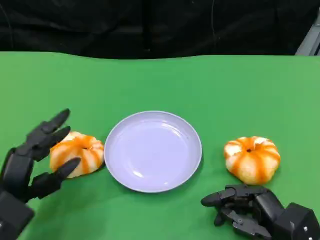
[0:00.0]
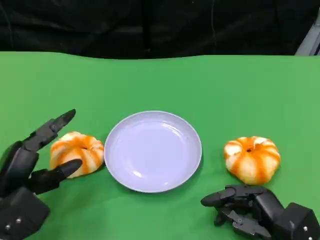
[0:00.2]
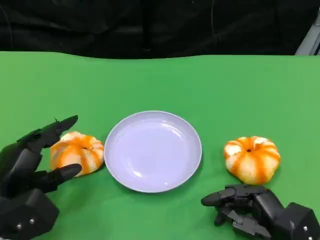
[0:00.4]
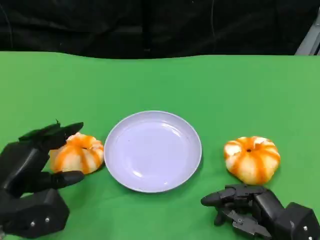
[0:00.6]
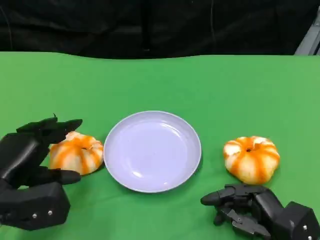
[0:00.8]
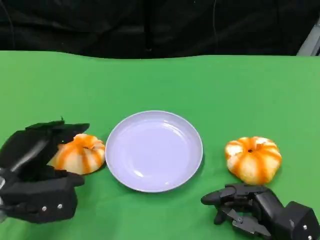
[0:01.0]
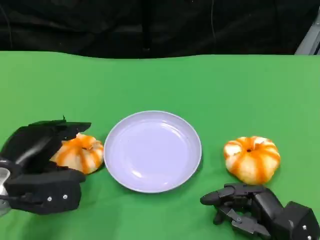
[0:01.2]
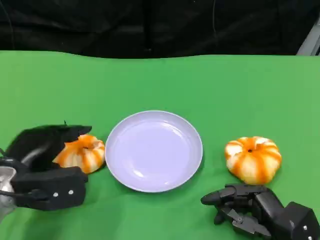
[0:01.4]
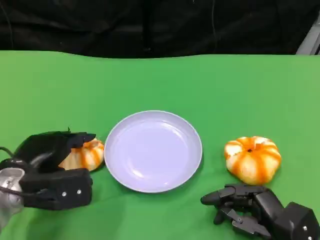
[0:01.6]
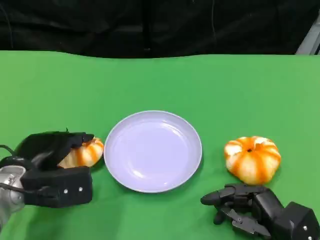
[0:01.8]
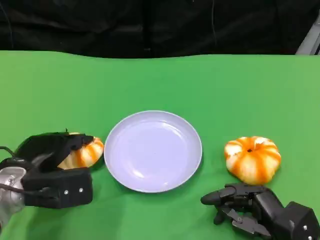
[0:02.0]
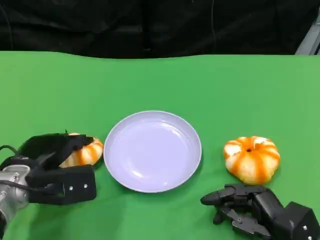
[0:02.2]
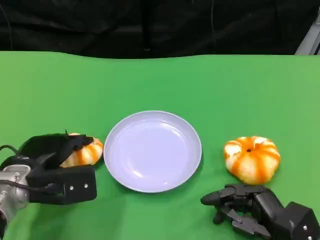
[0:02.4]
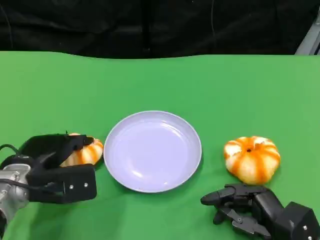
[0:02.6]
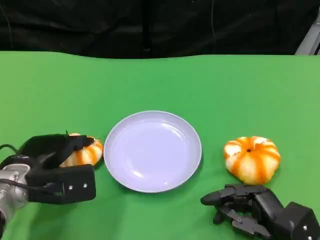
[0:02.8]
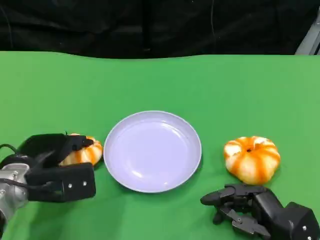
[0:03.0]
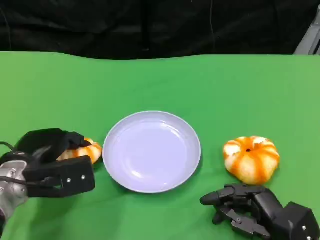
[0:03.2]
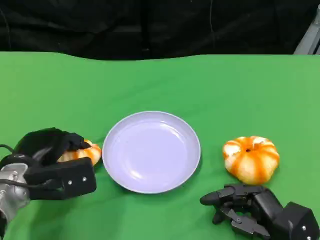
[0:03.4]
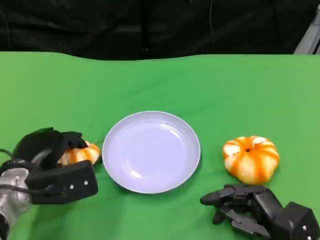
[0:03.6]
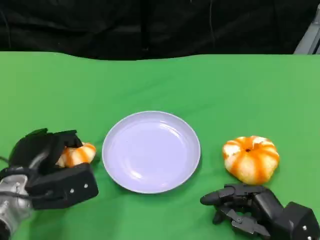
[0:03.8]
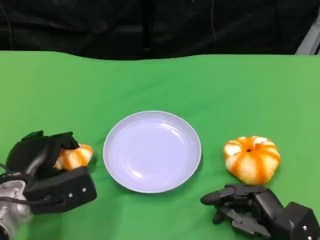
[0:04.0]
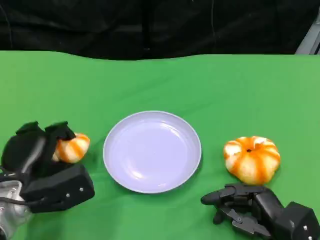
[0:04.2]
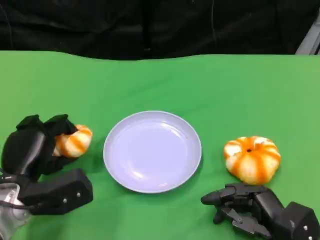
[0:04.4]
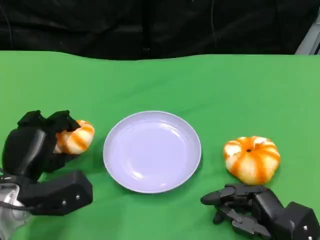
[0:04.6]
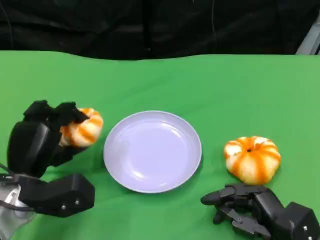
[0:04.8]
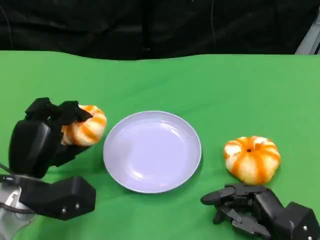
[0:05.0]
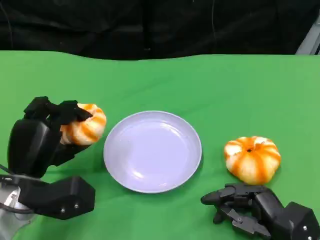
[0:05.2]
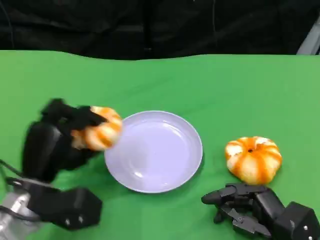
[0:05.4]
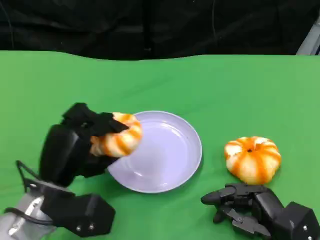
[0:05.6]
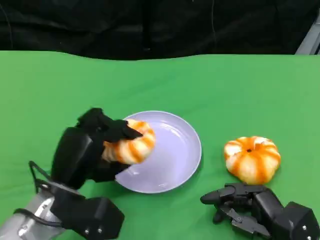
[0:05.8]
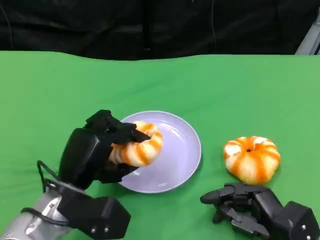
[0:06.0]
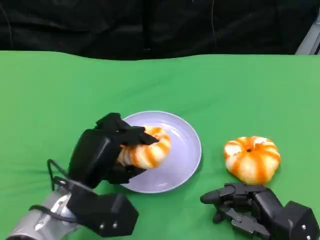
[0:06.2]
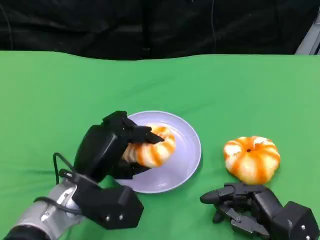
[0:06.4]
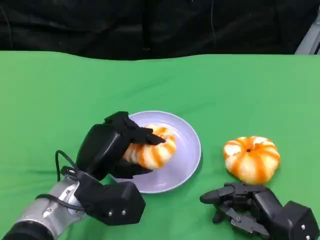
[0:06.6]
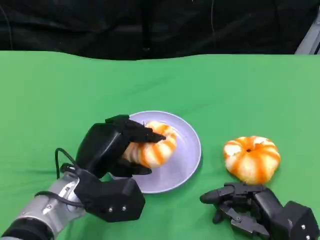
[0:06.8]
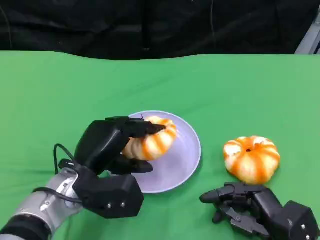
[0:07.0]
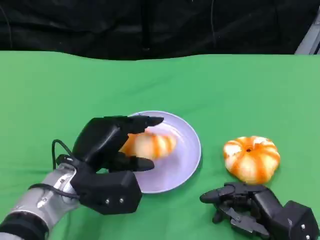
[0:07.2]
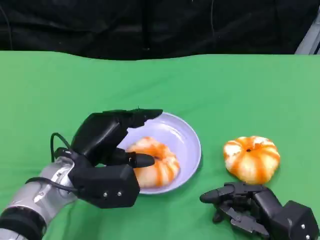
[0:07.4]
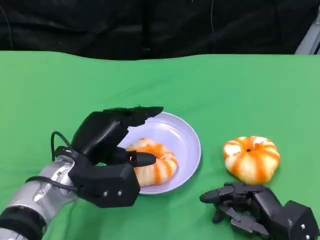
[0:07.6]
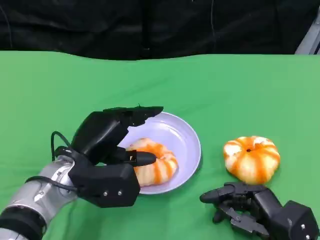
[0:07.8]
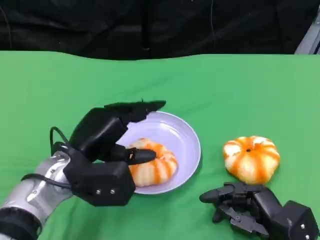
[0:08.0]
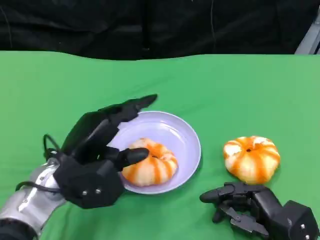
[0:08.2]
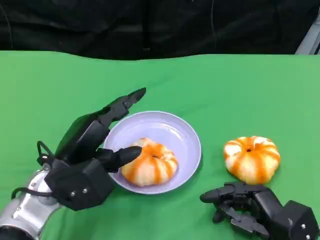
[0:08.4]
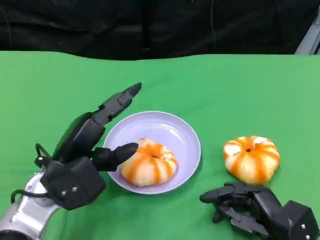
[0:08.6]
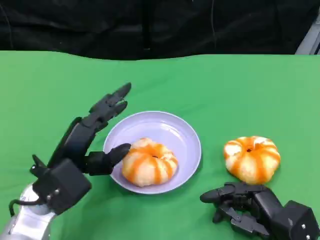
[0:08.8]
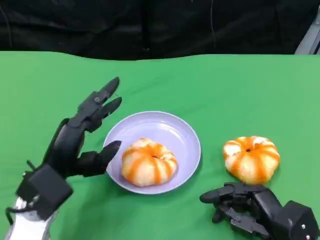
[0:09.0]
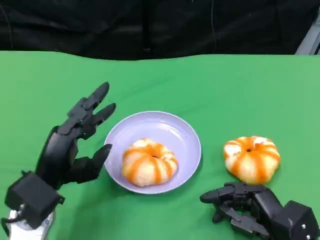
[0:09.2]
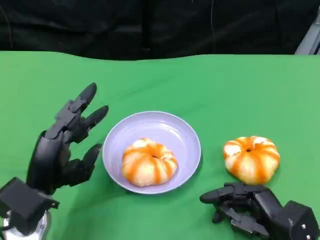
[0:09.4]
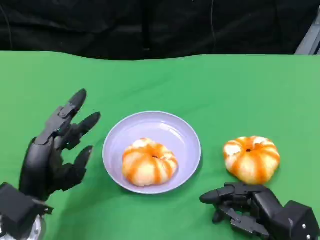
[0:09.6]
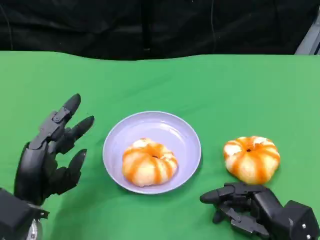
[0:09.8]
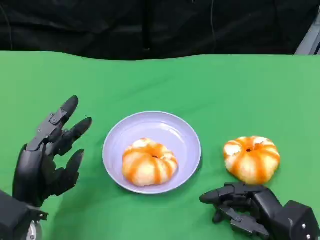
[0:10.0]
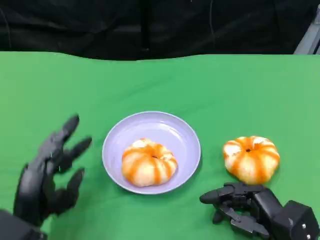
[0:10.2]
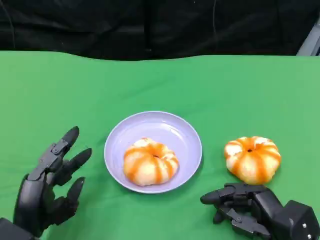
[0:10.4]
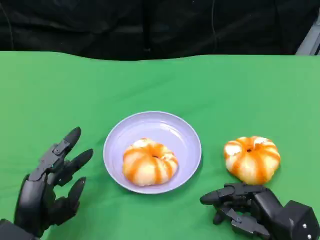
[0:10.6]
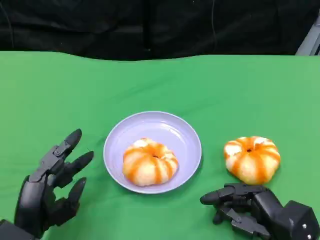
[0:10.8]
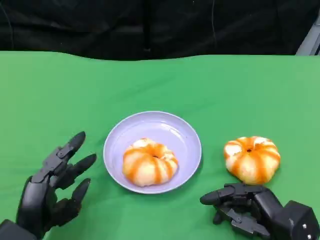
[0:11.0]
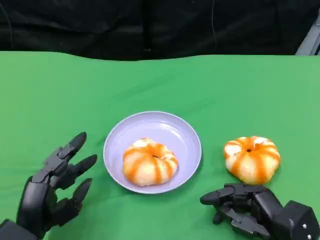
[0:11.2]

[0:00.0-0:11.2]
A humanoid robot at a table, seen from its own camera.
Task of the whole recording: Grasp the bread from the table and place it into the plate.
0:00.0 to 0:01.6: The left hand travels forward by roughly 5 cm.
0:01.6 to 0:03.2: The hands move only a little.
0:04.8 to 0:06.4: The left hand is displaced to the right by roughly 10 cm.
0:06.4 to 0:08.0: There are only small adjustments of the hands.
0:08.0 to 0:09.6: The left hand goes about 10 cm backward and to the left.
0:09.6 to 0:11.2: The left hand shifts by some 5 cm.

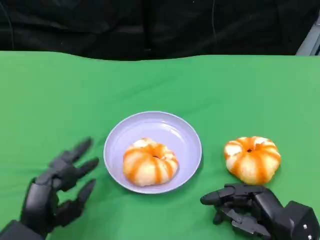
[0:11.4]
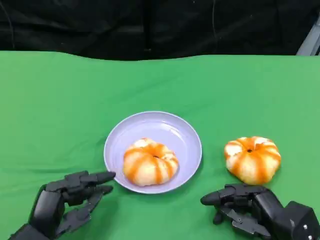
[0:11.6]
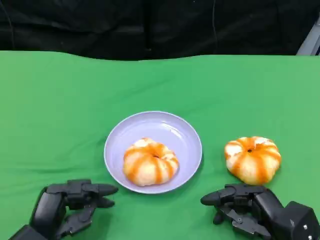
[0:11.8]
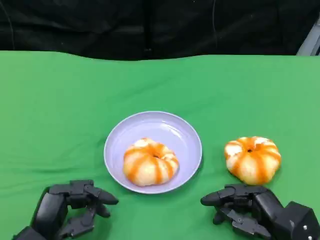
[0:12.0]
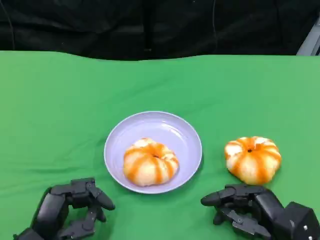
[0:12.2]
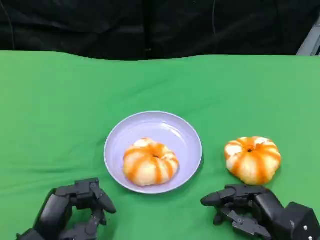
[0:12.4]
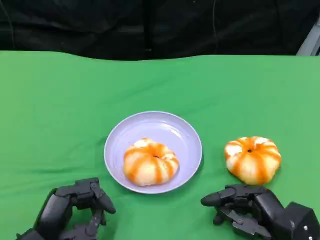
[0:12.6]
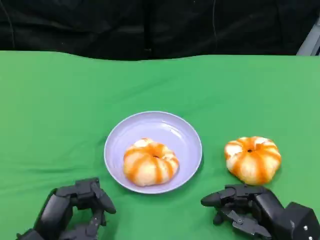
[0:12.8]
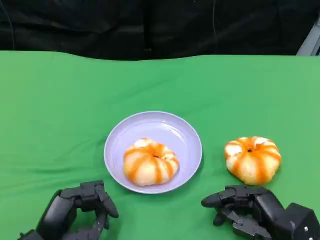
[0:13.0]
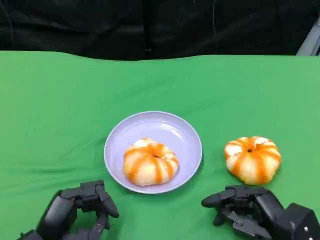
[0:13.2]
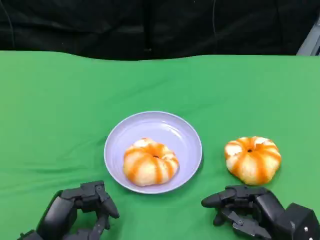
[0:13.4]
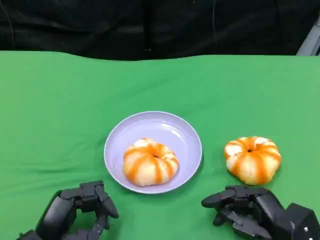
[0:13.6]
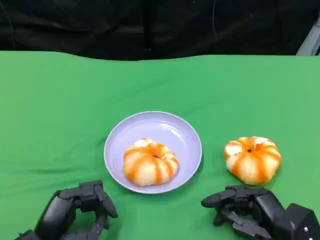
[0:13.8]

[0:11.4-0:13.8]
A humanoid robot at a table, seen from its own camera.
Task of the whole recording: Grasp the bread from the table and place it into the plate.
0:11.4 to 0:12.6: The hands stay close to where they were, moving slightly.
0:12.6 to 0:13.8: Neither hand changes place.

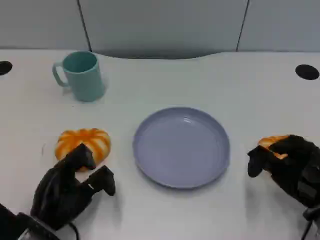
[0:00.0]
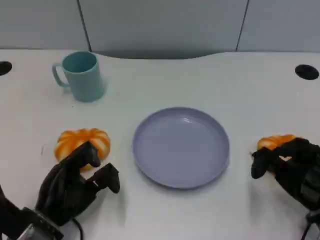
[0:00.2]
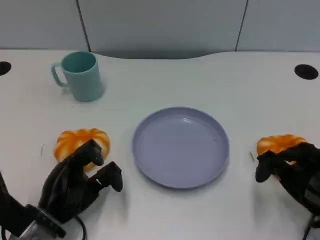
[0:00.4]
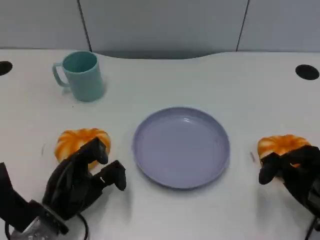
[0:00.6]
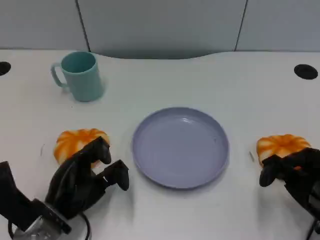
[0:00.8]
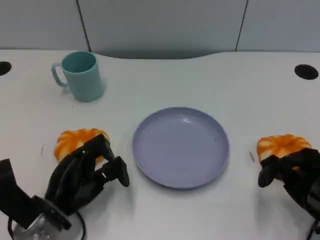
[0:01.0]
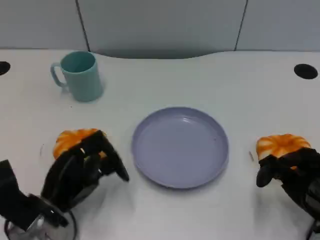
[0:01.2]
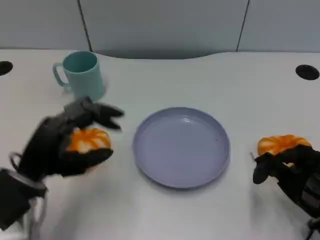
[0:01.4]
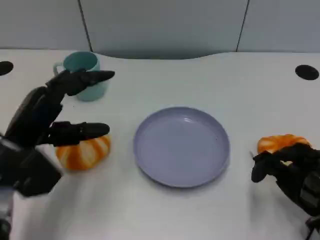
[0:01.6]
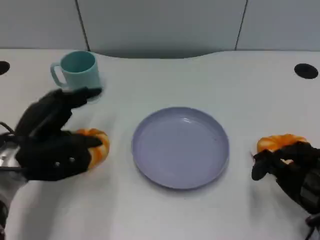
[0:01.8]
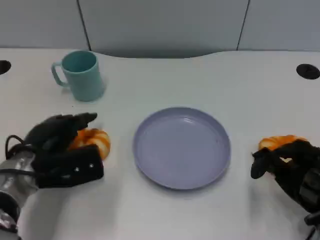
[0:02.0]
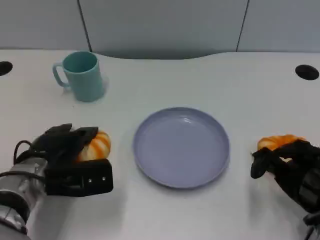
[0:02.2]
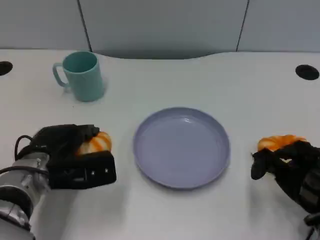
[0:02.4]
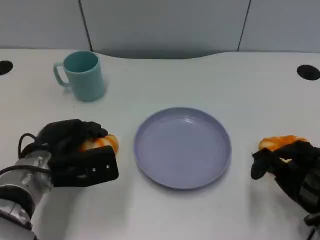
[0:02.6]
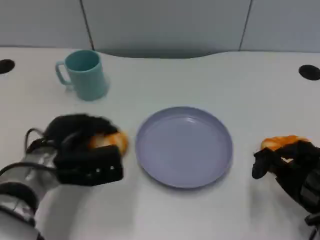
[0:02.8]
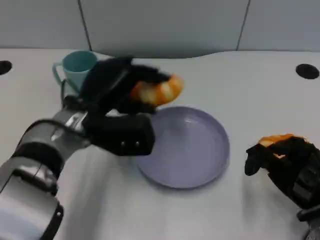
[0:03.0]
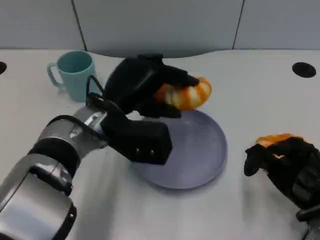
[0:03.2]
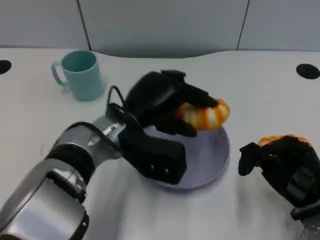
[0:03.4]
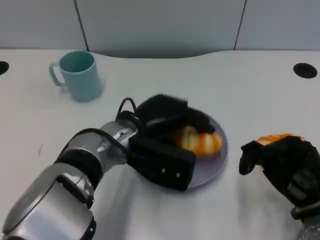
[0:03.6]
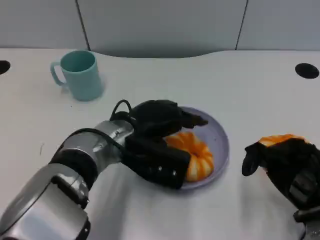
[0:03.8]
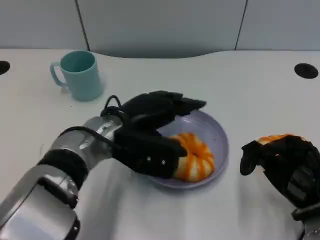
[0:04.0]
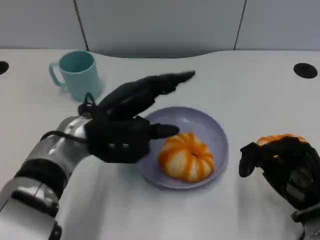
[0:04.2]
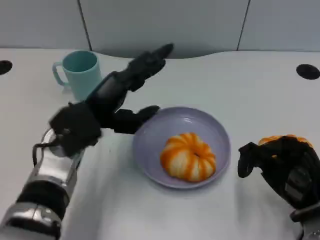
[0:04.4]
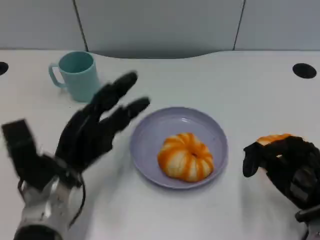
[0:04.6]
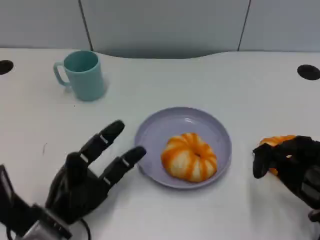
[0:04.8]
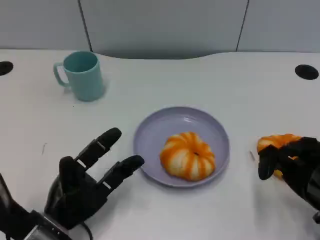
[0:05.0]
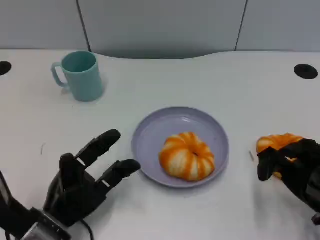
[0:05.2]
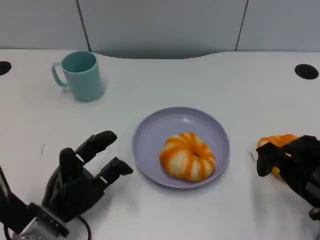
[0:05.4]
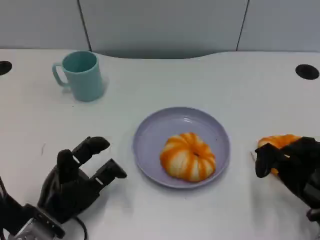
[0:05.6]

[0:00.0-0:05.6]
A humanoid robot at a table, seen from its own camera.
Task of the whole recording: Grasp the bread from the table and place it into the plate.
0:00.0 to 0:01.4: The left hand goes about 10 cm upward.
0:01.4 to 0:02.8: The left hand travels forward and to the right by about 10 cm.
0:04.2 to 0:05.6: The left hand travels downward, backward and to the left by about 15 cm.

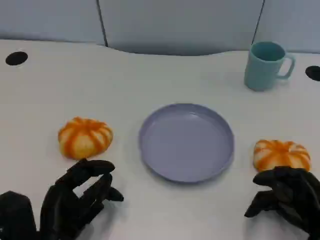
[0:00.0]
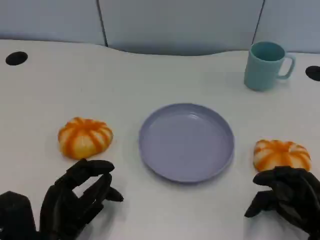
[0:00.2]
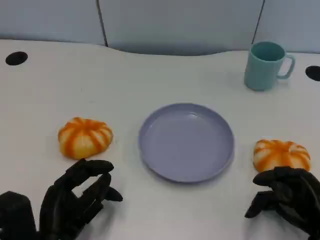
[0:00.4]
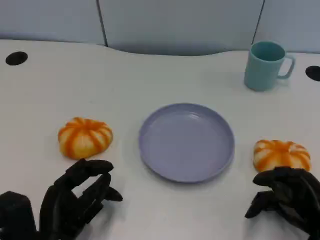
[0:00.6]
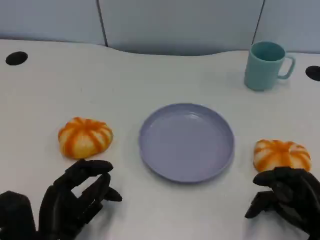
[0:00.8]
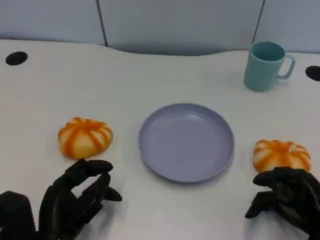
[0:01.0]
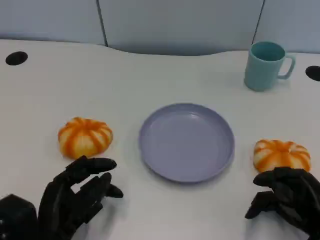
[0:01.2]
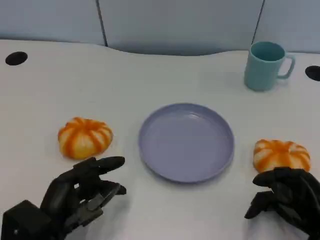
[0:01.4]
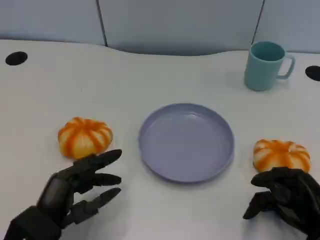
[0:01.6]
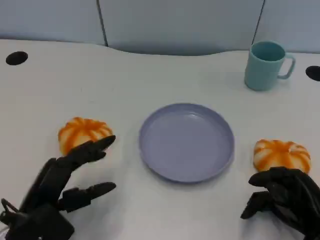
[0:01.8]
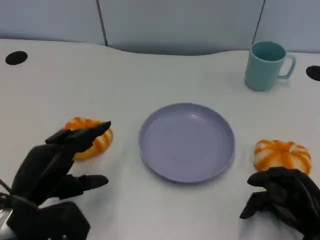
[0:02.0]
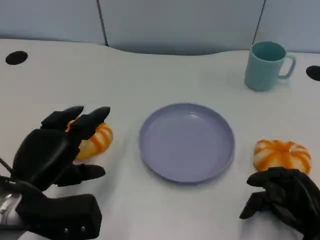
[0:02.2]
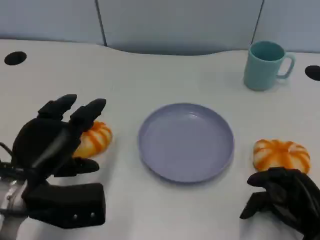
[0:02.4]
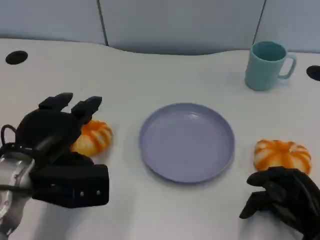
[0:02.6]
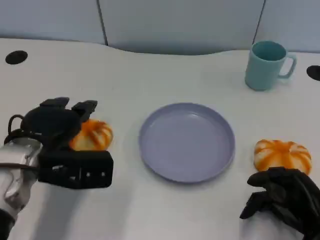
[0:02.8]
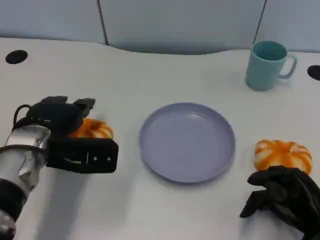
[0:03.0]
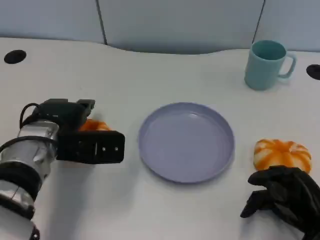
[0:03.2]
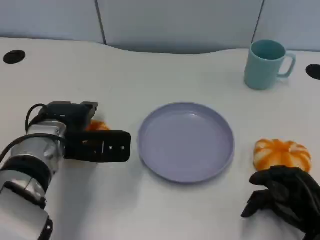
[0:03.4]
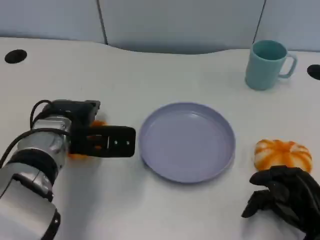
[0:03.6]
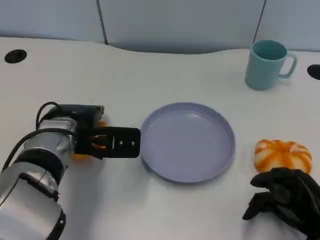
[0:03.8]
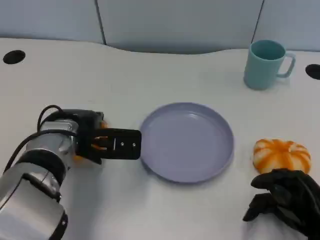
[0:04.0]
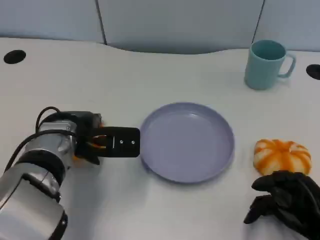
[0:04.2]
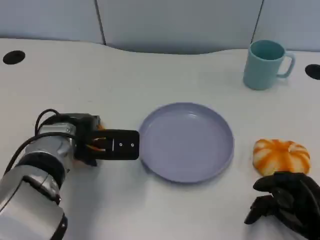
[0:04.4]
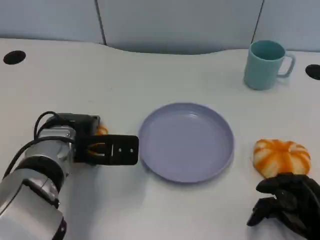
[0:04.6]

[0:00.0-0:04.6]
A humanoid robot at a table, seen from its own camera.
Task of the whole recording: Grasp the bread from the table and place it into the plate.
0:01.6 to 0:03.0: The left hand goes some 15 cm forward and upward.
0:03.0 to 0:04.6: There are only small adjustments of the hands.
